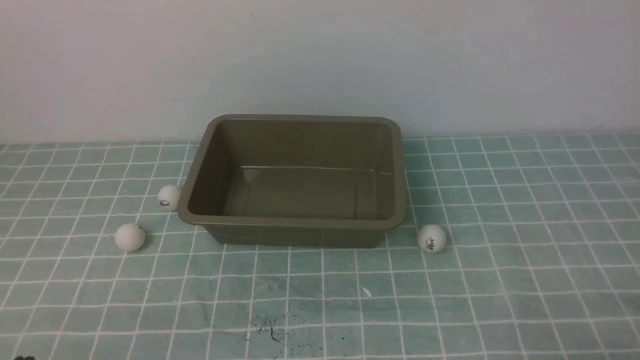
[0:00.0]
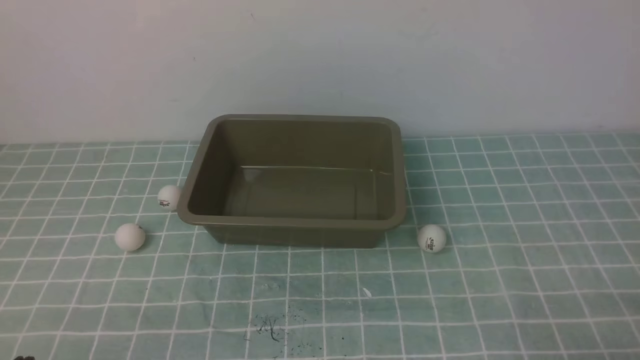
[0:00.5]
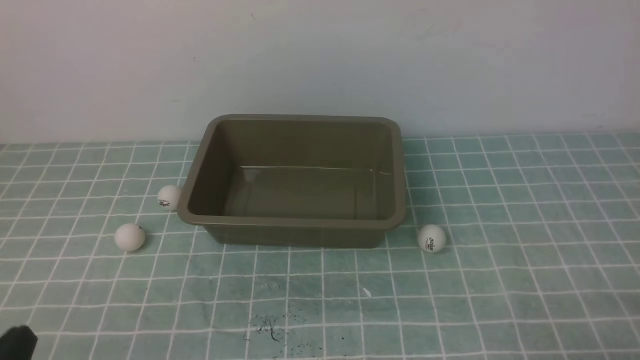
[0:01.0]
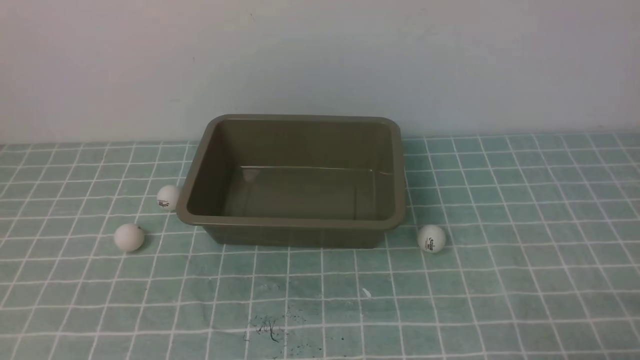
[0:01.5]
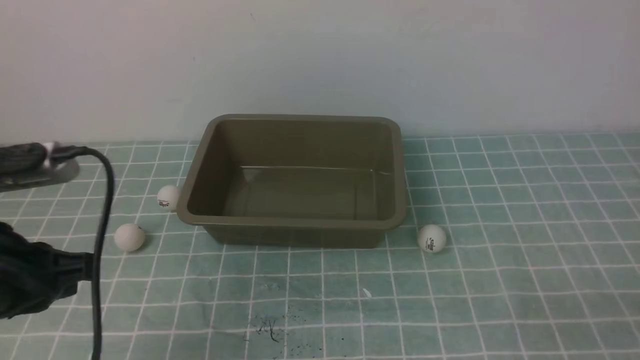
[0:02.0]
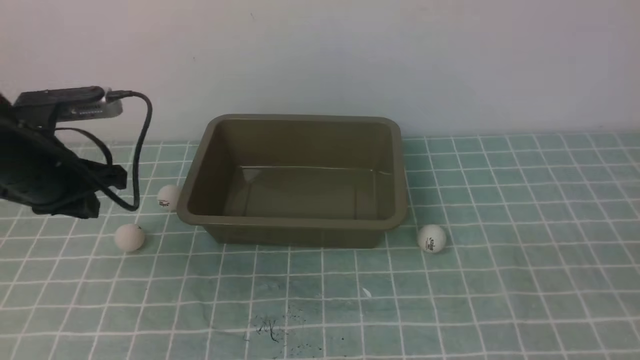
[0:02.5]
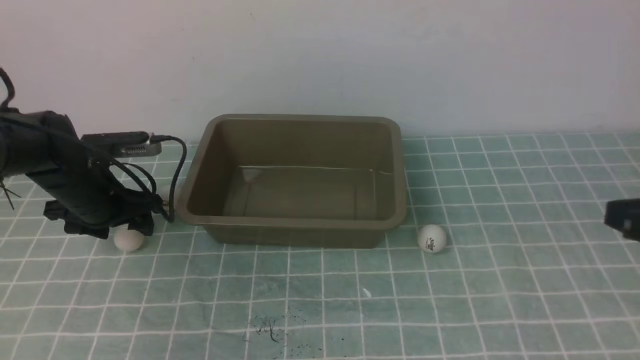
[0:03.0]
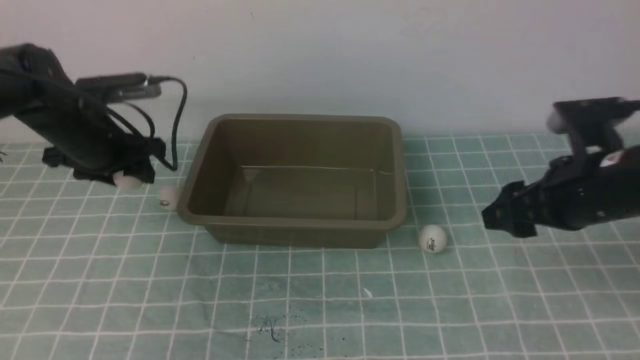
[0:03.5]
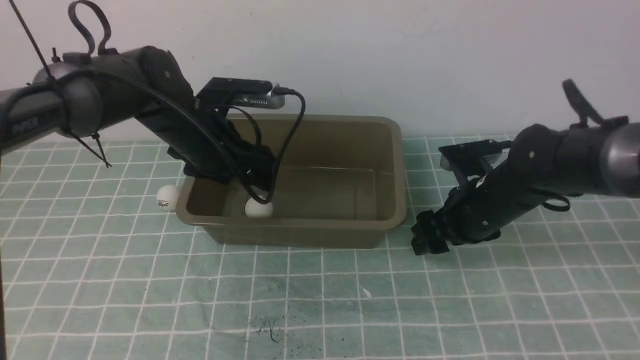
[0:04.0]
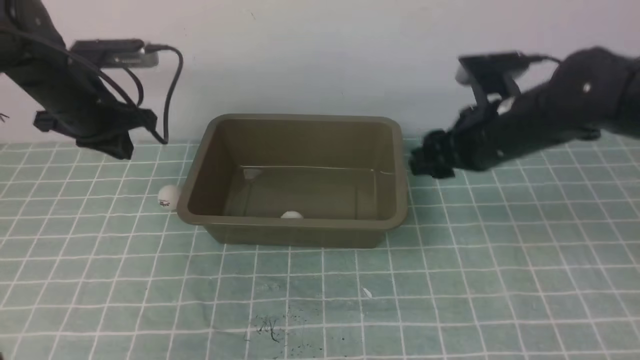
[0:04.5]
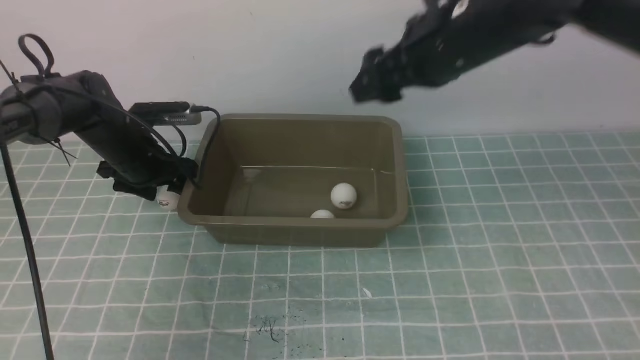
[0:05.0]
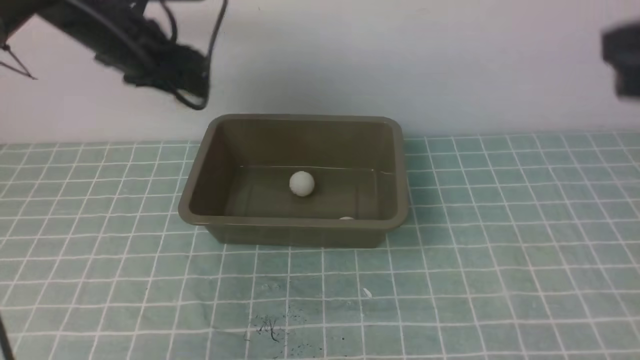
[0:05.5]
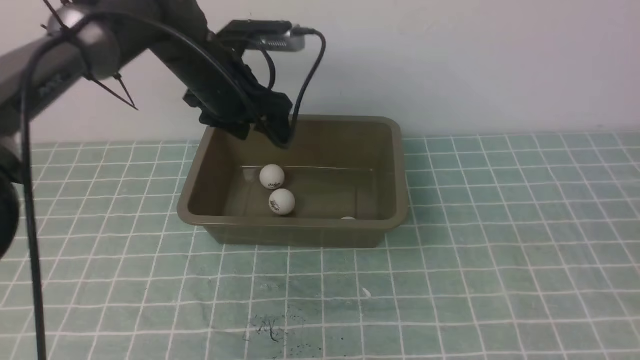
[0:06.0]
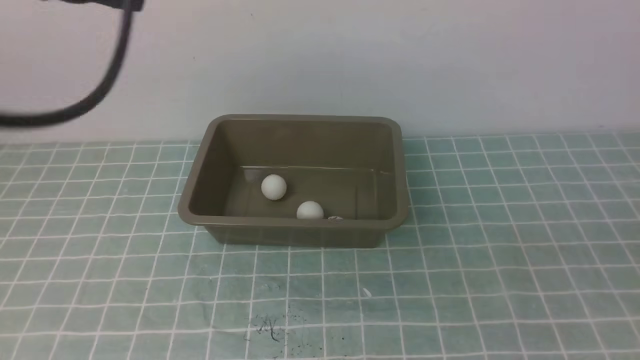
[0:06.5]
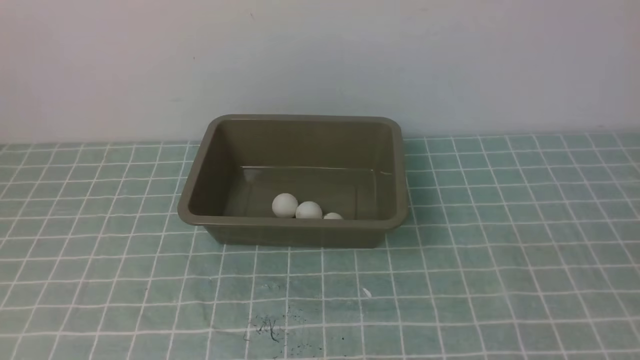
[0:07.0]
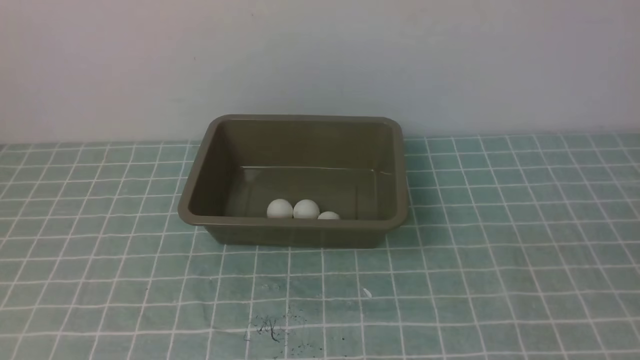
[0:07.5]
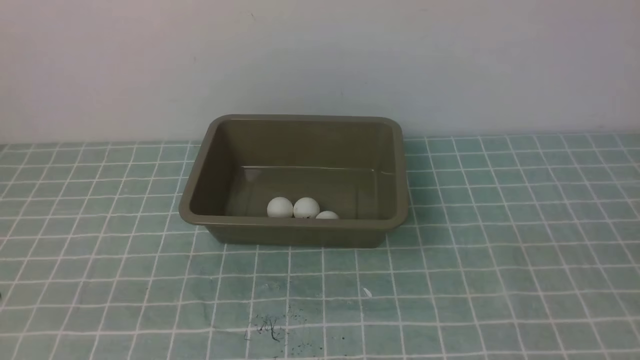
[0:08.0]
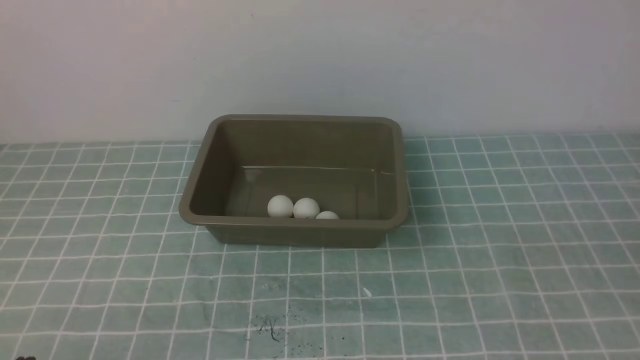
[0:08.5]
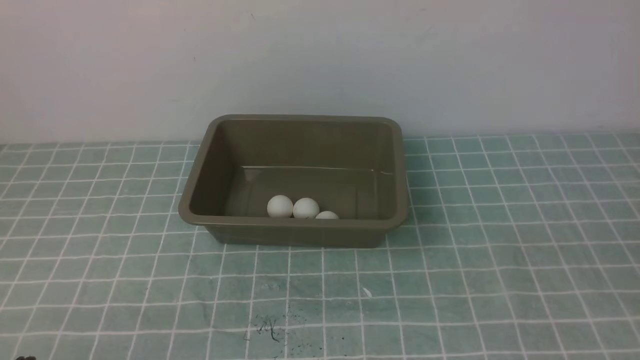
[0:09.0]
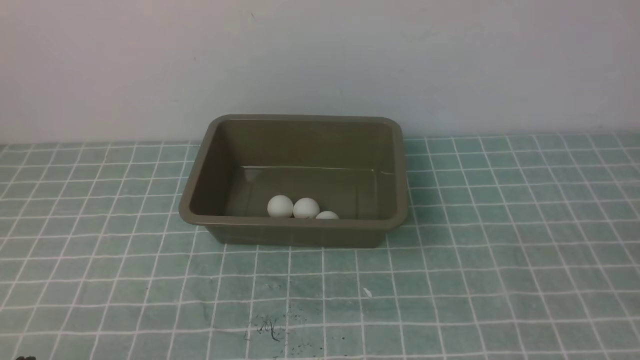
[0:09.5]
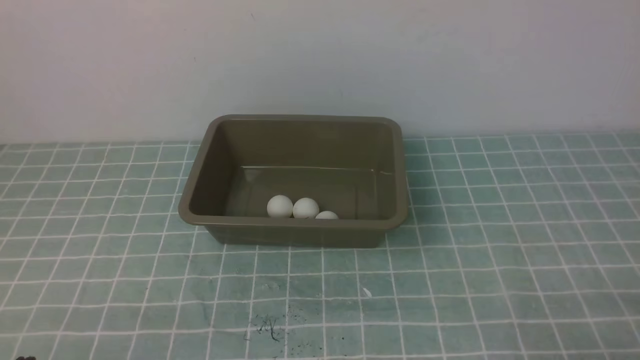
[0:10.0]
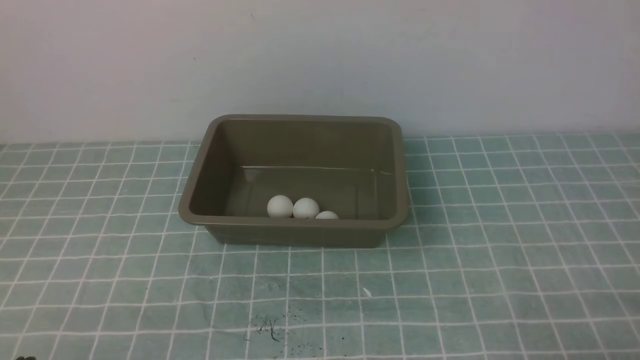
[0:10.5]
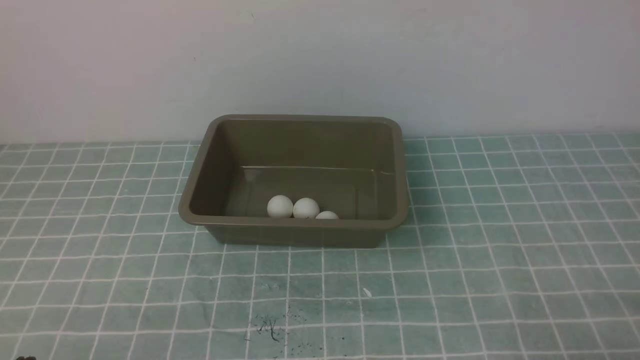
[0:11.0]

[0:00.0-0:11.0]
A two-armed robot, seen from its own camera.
Step, 0:00.0 to 0:03.0: use the left arm to clamp the table tennis ball closest to it.
Step, 0:03.5 to 0:04.0: use the left arm to put the table tennis ball into the box.
Step, 0:05.5 to 0:06.0: use the left arm to put the table tennis ball into the box.
0:02.0 to 0:03.5: The left gripper travels forward and downward by about 25 cm, and opens its fingers. Meanwhile the right gripper moves forward, about 20 cm, and opens up.
0:03.5 to 0:05.5: The left gripper moves upward and forward, some 10 cm, and closes, then opens again. The right gripper moves upward, some 15 cm, and closes its fingers.
0:05.5 to 0:07.5: The left gripper shifts approximately 50 cm backward, and closes up, while the right gripper moves backward, downward and to the right, some 25 cm.
